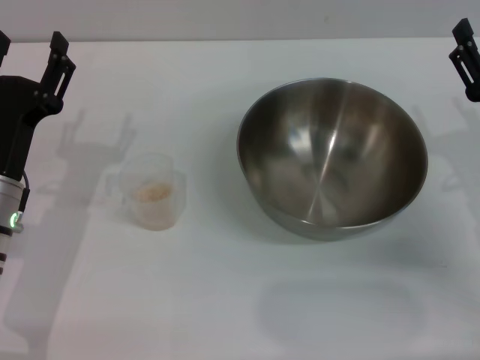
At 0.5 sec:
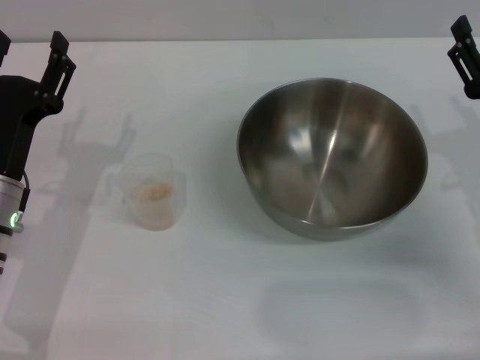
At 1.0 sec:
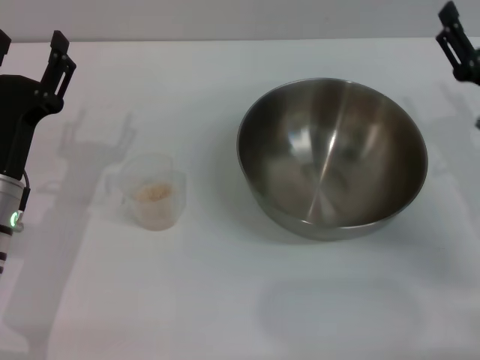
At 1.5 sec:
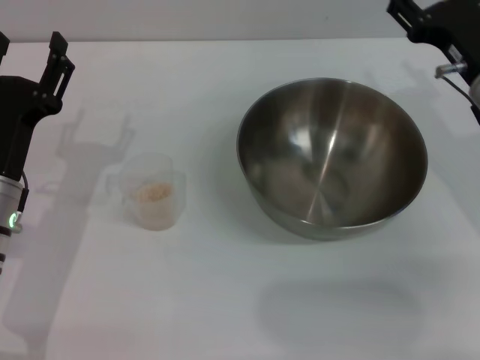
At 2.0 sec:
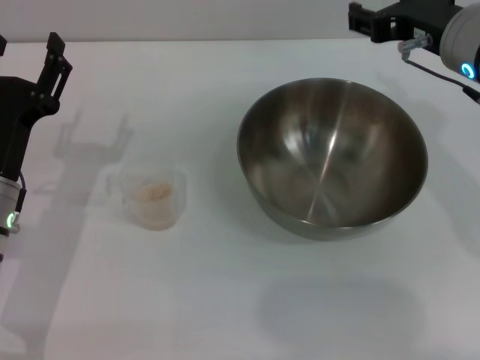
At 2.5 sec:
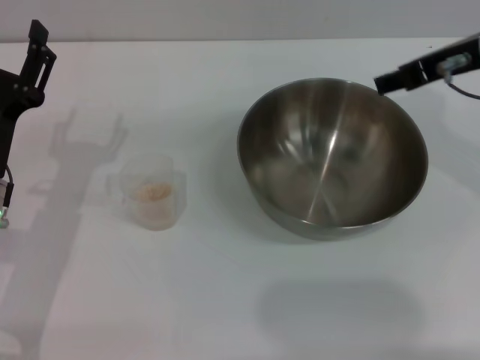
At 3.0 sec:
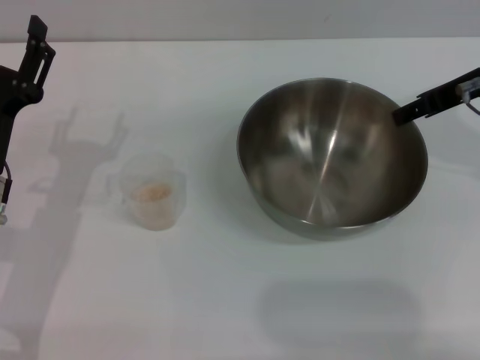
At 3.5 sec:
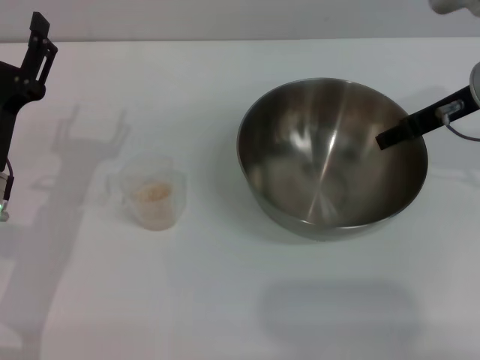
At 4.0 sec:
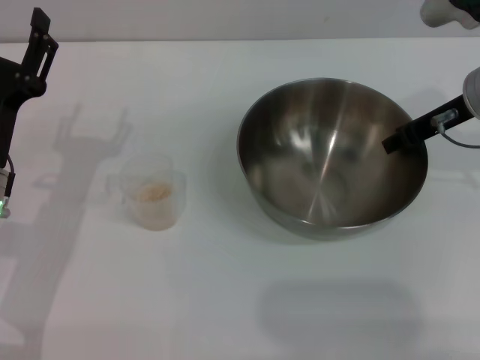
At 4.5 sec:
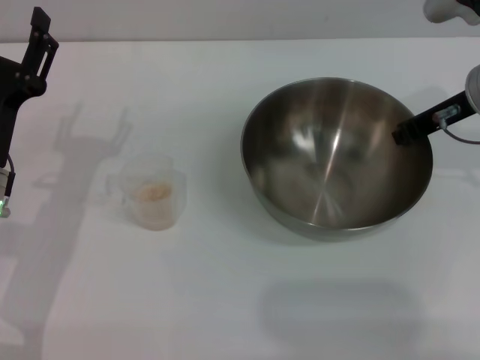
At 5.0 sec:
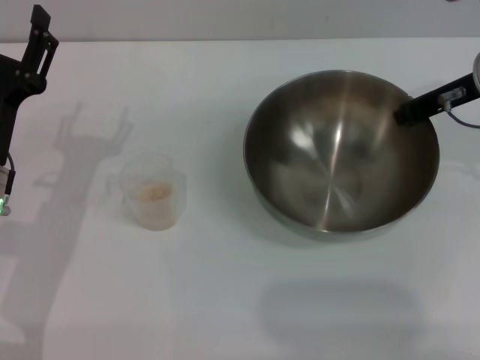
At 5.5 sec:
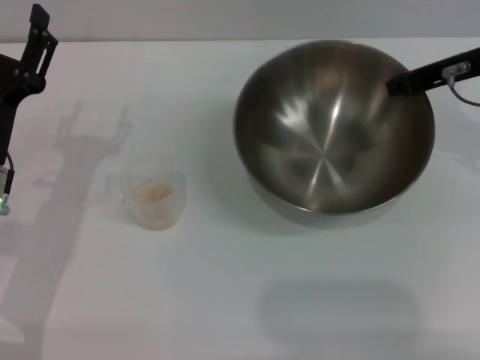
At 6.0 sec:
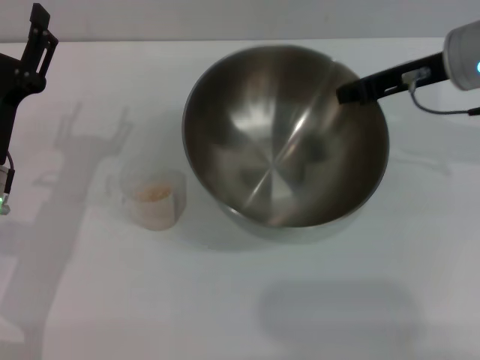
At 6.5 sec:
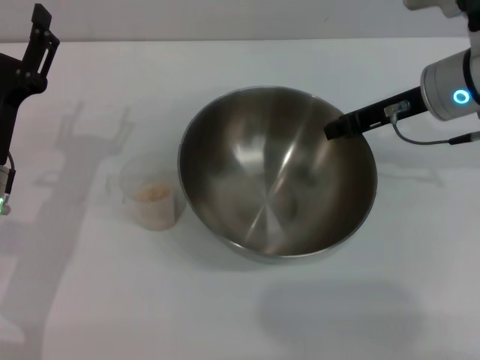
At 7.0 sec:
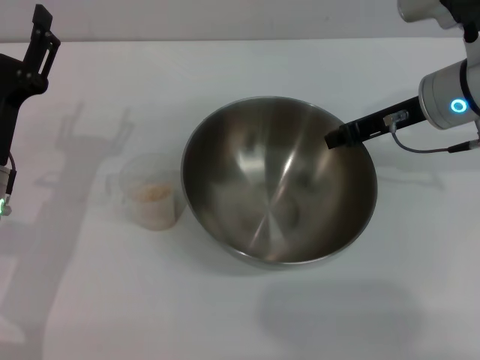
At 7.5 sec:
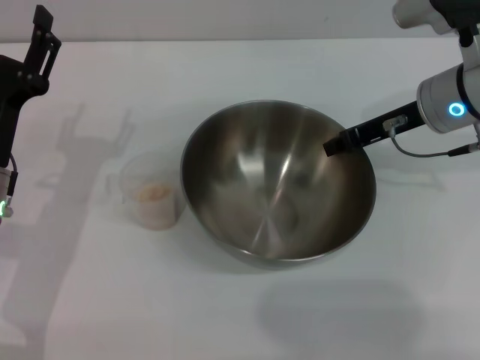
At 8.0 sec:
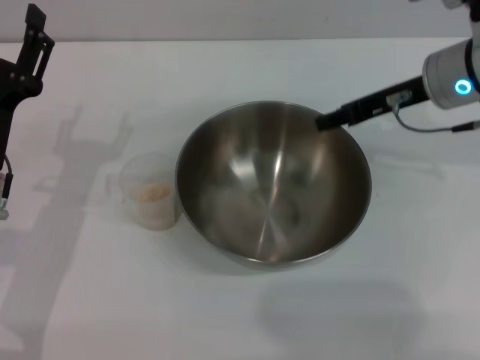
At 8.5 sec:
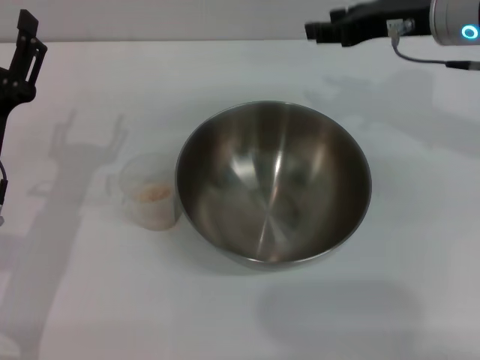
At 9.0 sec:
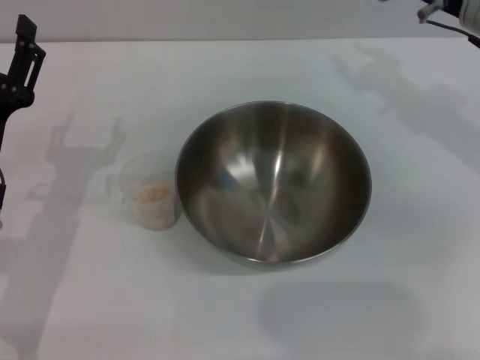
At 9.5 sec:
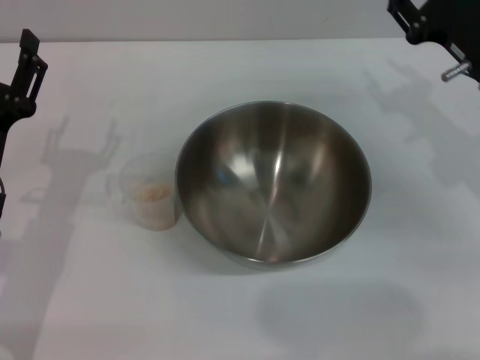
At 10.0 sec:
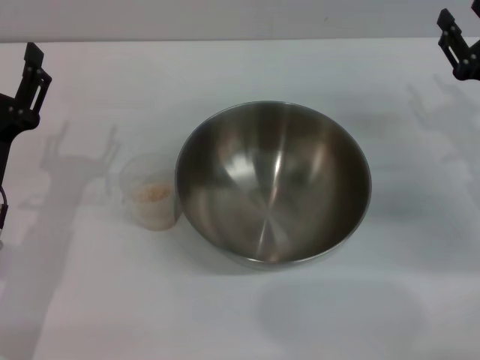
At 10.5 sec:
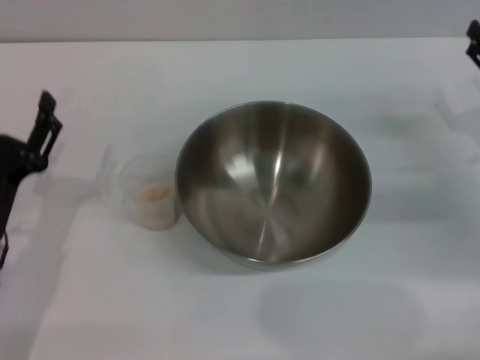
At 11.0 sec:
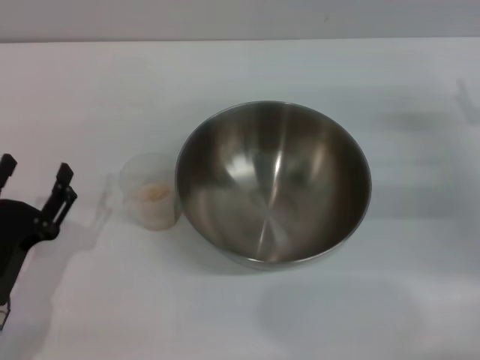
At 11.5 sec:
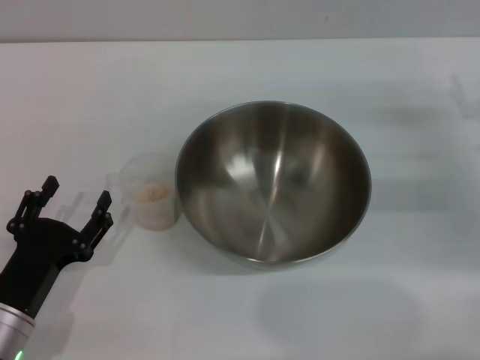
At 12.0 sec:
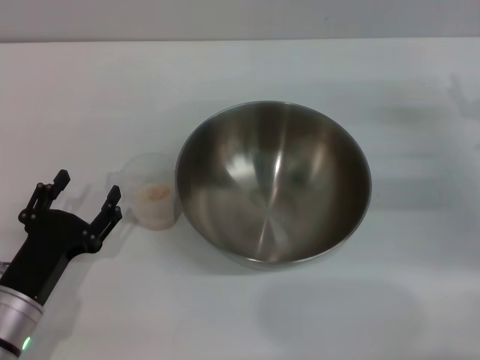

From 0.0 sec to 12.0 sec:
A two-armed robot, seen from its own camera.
Task of the whole recording: Place the bowl in the middle of the table with one hand and pour the rice from the grain cup into it with the other hand.
Step, from 0.0 sec to 5.0 sec: Pick up the bowl with the right gripper.
Step, from 5.5 sec to 8.0 sec: Place the bowl in the center of view with the right gripper.
From 0.0 sec to 2.0 sec: The right gripper goes approximately 20 cm upward, to the left and forward.
From 2.0 sec to 4.0 sec: The right gripper changes place by roughly 5 cm.
From 4.0 sec to 6.0 sec: The right gripper closes its fingers.
From 6.0 sec to 8.0 sec: The right gripper opens up.
From 8.0 sec to 10.0 sec: The right gripper heads to the right, downward and backward, covering roughly 15 cm.
From 10.0 sec to 12.0 sec: The left gripper moves downward and backward, approximately 10 cm.

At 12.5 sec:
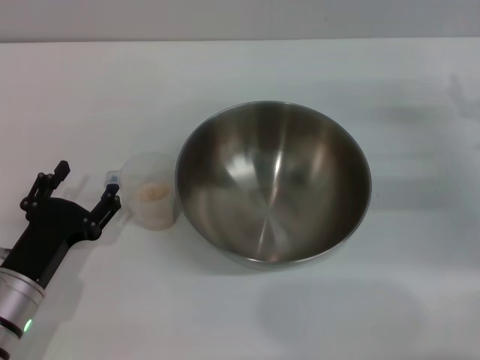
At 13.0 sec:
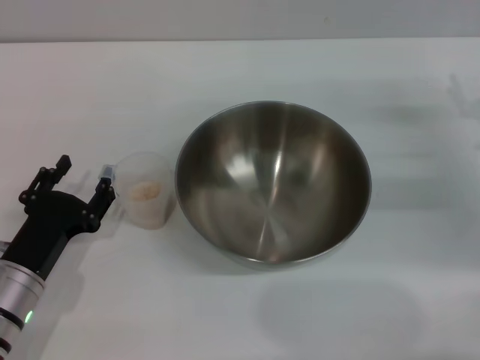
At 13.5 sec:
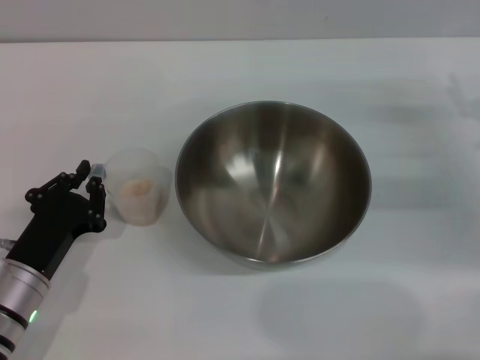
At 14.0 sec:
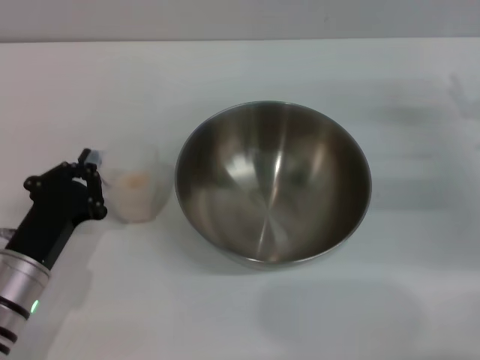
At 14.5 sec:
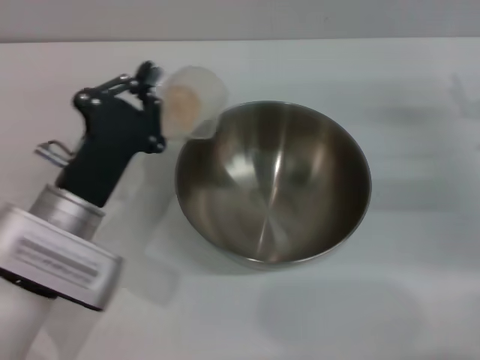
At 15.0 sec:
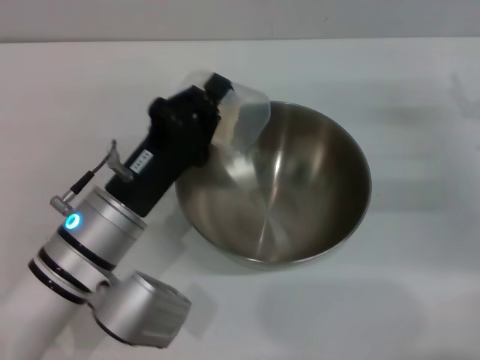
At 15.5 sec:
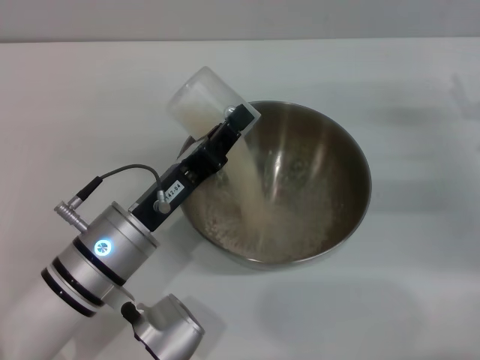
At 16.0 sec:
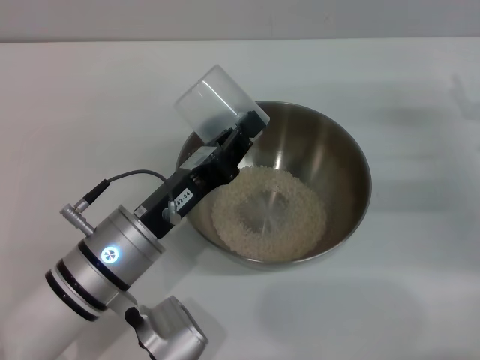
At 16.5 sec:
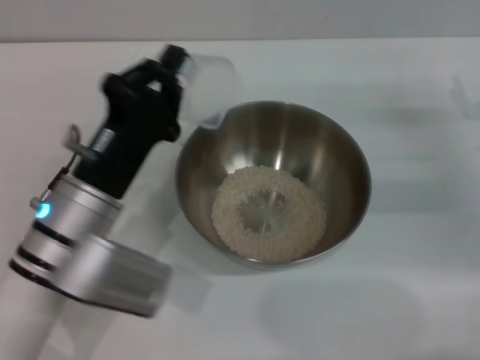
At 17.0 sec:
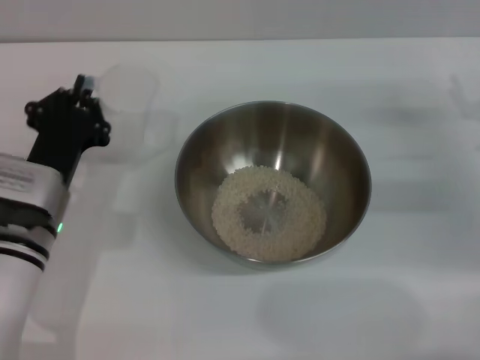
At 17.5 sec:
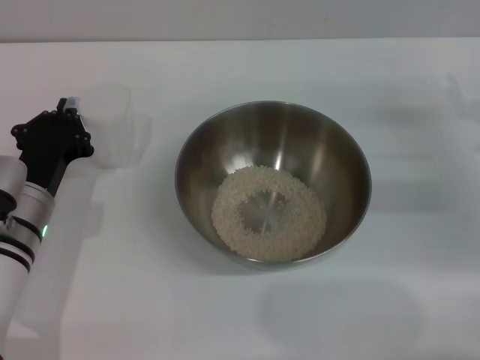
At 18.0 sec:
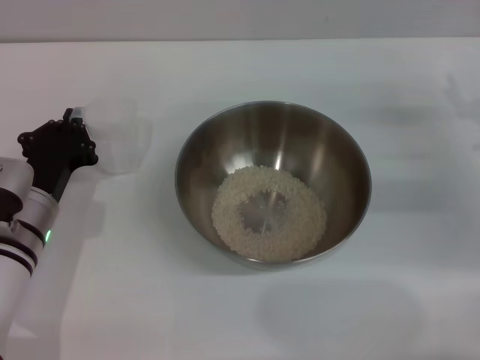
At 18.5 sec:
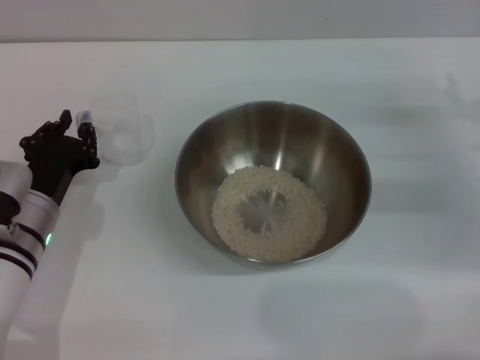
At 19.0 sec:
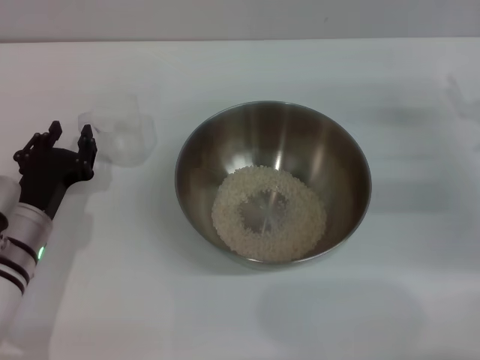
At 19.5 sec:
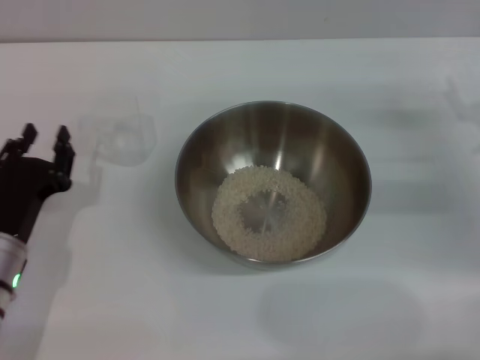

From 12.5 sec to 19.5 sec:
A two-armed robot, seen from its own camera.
Task of the whole recording: Place the bowl in the middle of the table with one hand and pour the rice from the grain cup into it with the other hand.
Step, from 14.5 sec to 16.0 sec: Pour the rice from the cup into the bowl with the left gripper.
Step, from 16.5 sec to 19.0 sec: Place the cup on the table with the left gripper.
From 12.5 sec to 14.5 sec: The left gripper goes some 10 cm to the right and upward, and closes up.
From 16.0 sec to 17.5 sec: The left gripper shifts roughly 10 cm to the left.
From 17.5 sec to 19.5 sec: The left gripper moves approximately 5 cm, and opens up.
